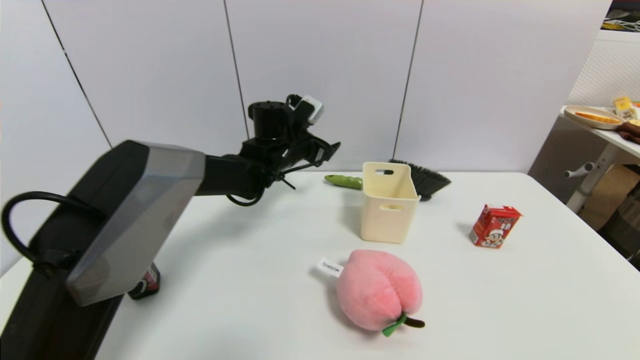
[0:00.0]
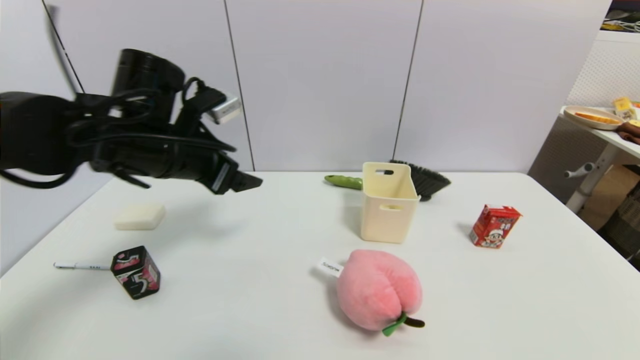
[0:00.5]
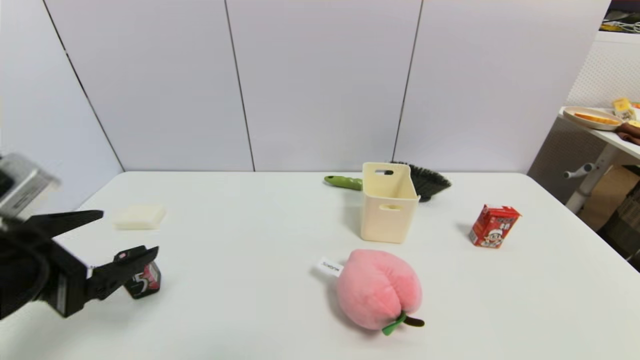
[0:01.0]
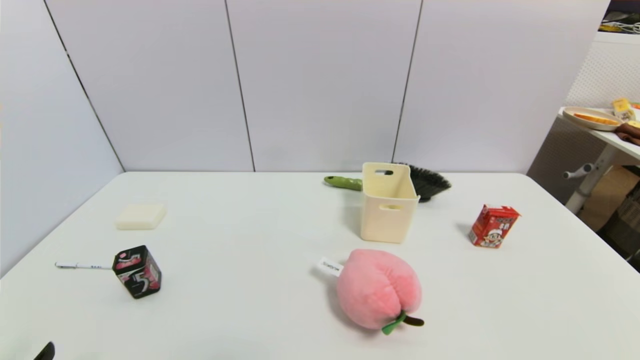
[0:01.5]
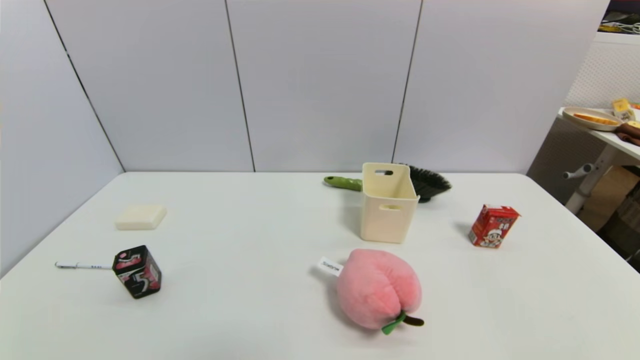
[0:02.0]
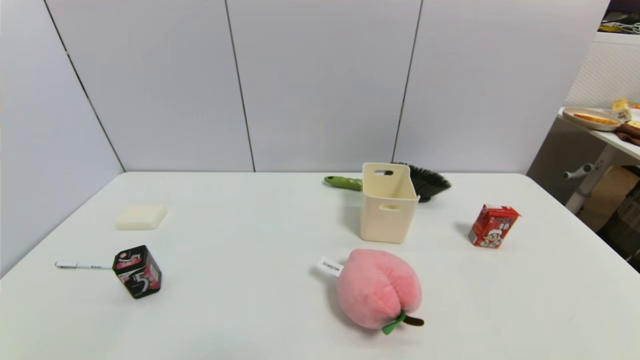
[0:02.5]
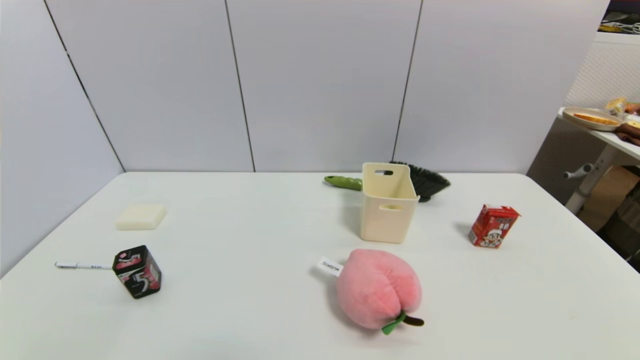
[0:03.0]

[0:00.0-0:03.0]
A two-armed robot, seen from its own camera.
Task of the whole recording: put the brush in the designated position.
0:00.0 to 0:01.5: The left gripper moves backward and to the left, some 50 cm.
0:01.5 to 0:03.0: The grippers make only small movements.

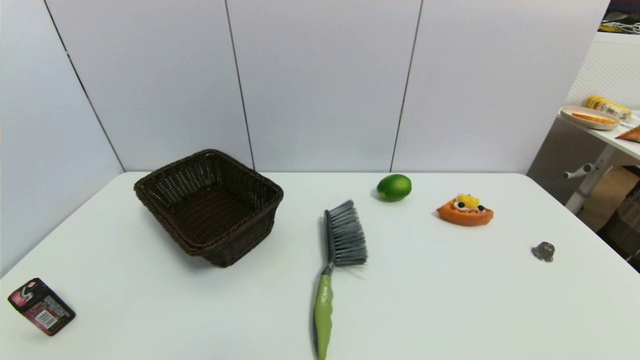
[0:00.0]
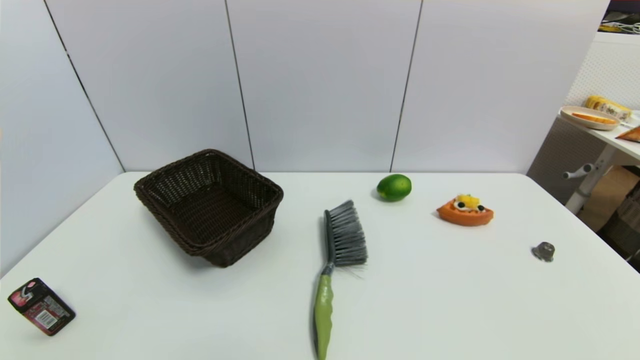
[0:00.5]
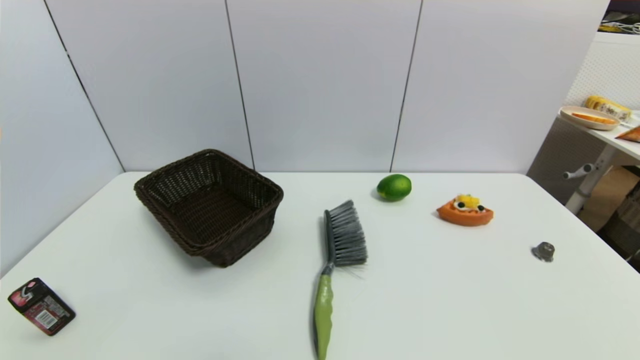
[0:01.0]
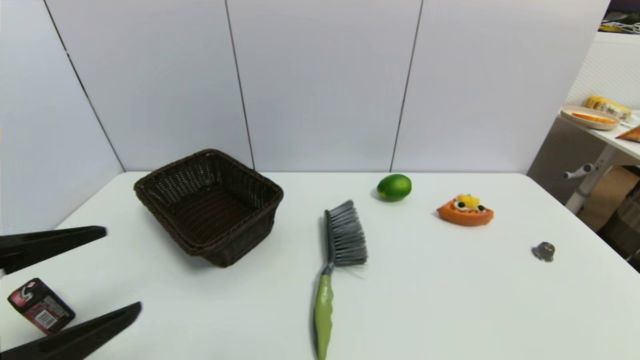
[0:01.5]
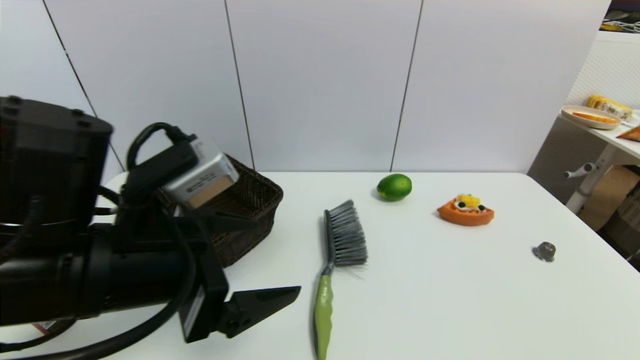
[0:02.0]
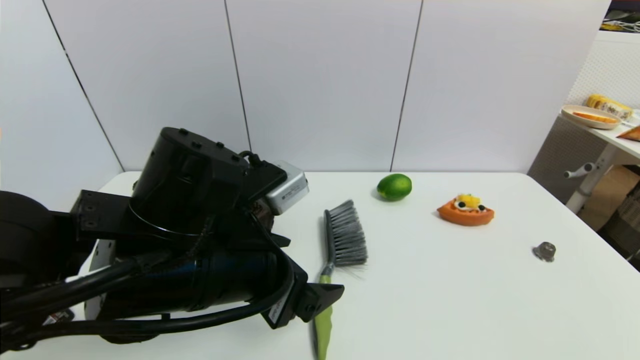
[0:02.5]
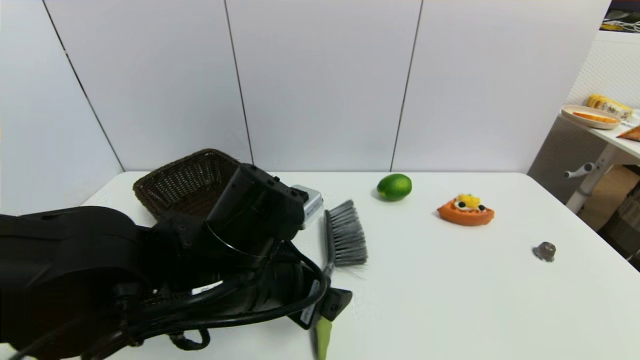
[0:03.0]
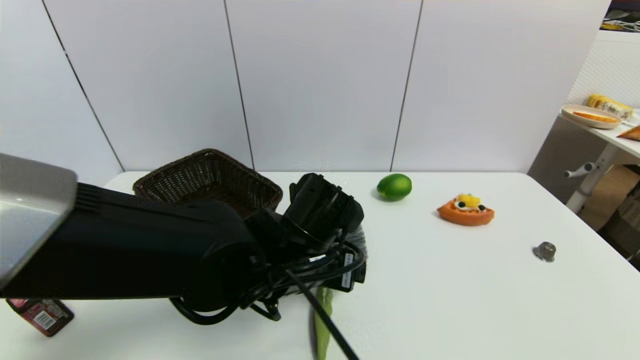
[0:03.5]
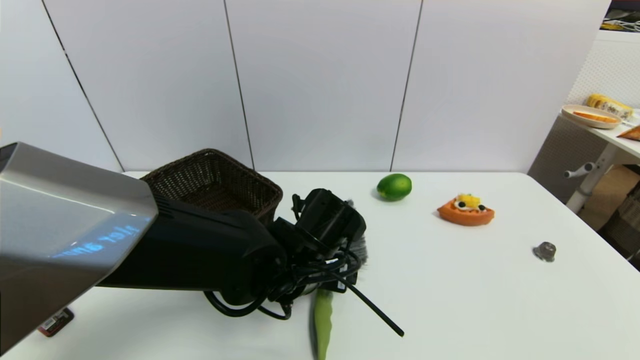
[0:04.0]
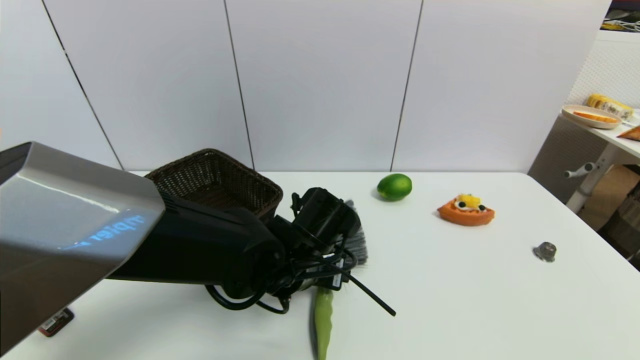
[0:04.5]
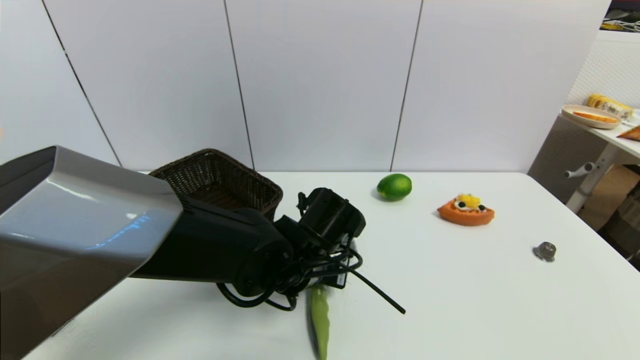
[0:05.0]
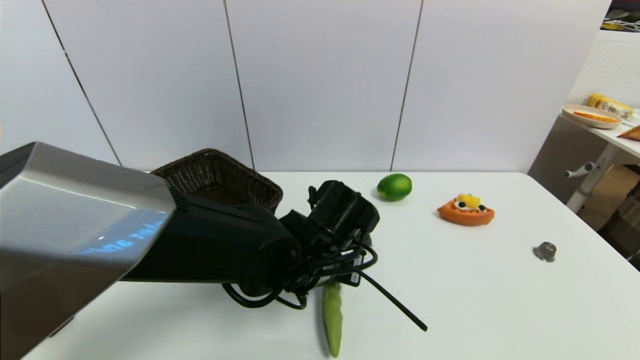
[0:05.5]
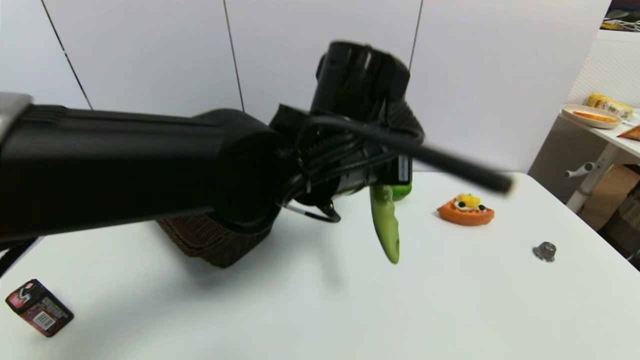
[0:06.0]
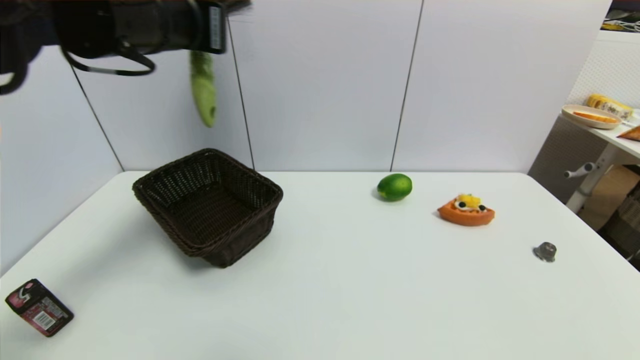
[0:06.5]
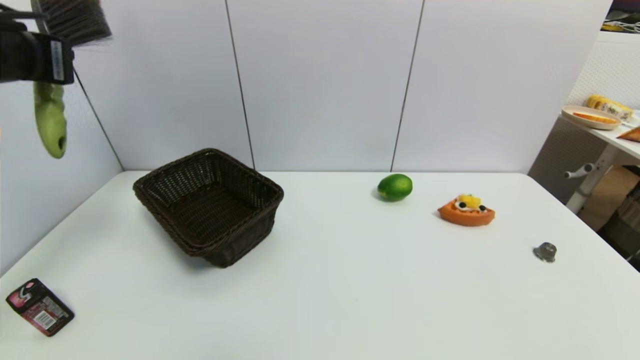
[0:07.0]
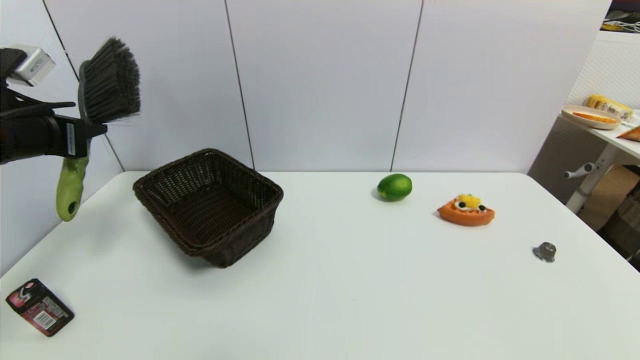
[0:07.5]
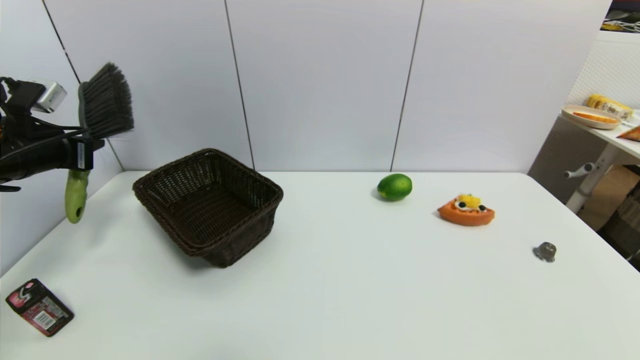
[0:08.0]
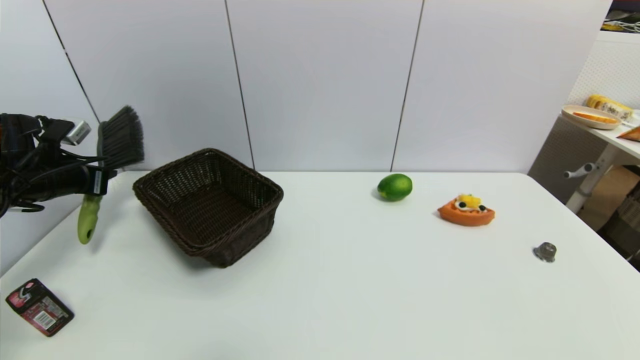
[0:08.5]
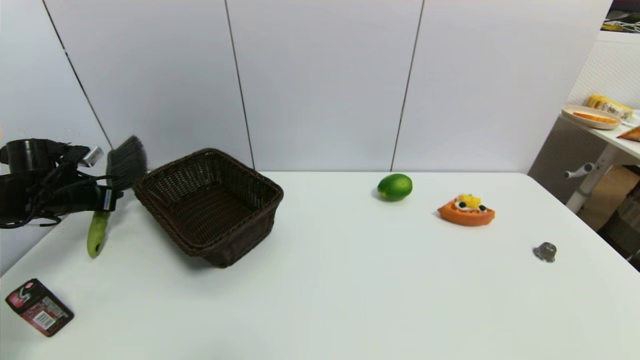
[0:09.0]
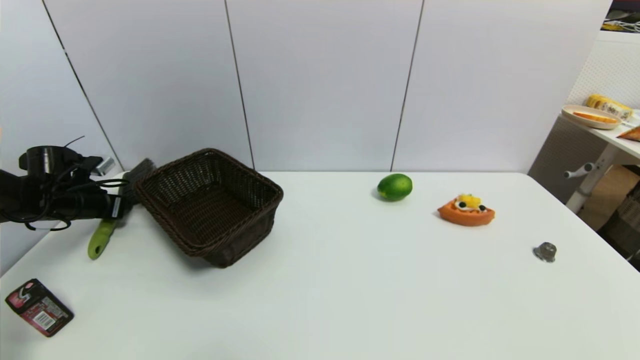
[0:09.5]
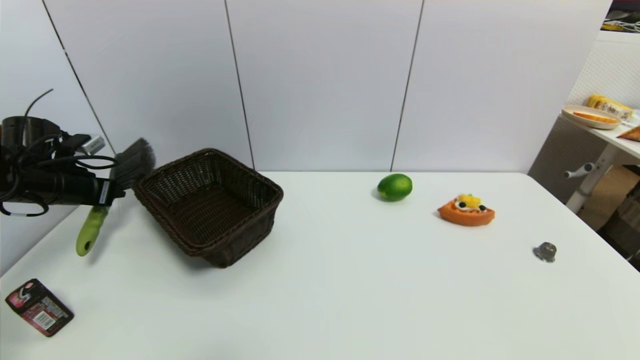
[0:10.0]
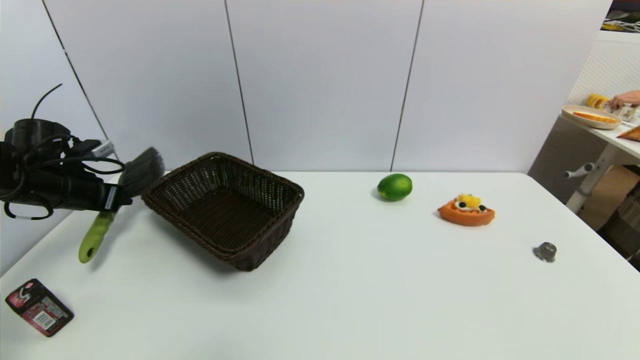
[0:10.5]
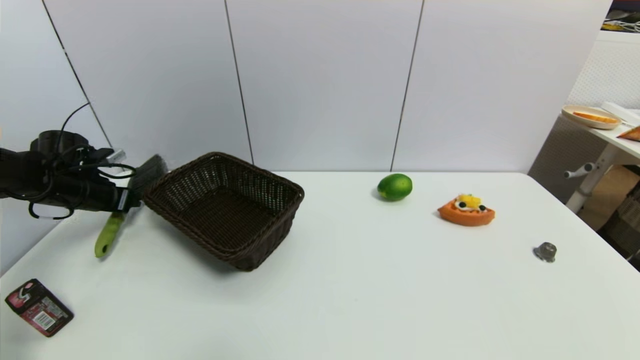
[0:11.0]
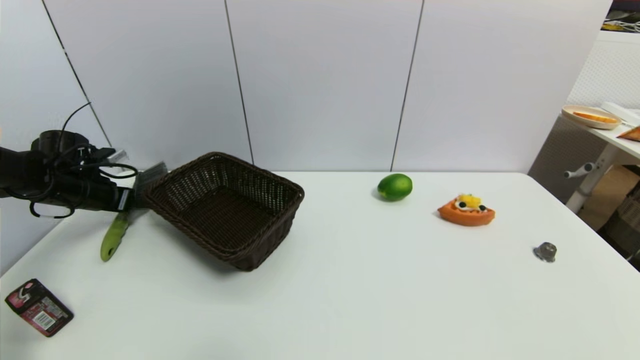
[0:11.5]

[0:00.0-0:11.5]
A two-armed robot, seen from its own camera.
Task of the whole recording: put the brush in the designated position.
Step, 0:01.5 to 0:05.5: Grasp the brush with left gripper.
0:00.0 to 0:02.0: The left gripper heads forward, upward and to the right, covering approximately 30 cm.
0:02.0 to 0:04.0: The left gripper goes roughly 20 cm to the right, downward and forward.
0:04.0 to 0:06.0: The left gripper moves upward, approximately 15 cm, and closes its fingers.
0:06.0 to 0:07.5: The left gripper goes about 35 cm to the left.
0:07.5 to 0:09.5: The left gripper shifts some 20 cm downward, forward and to the left.
0:09.5 to 0:11.5: The left gripper opens up.

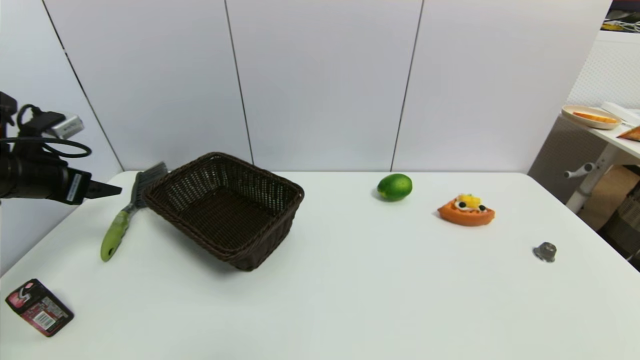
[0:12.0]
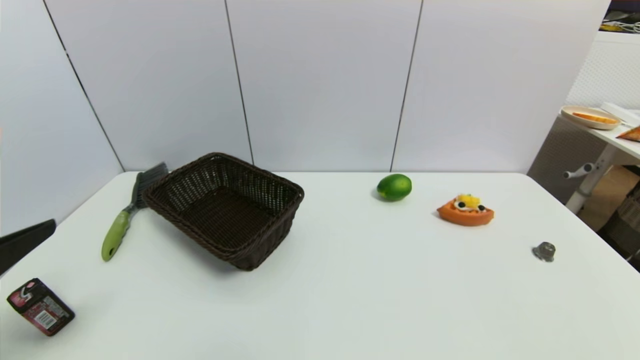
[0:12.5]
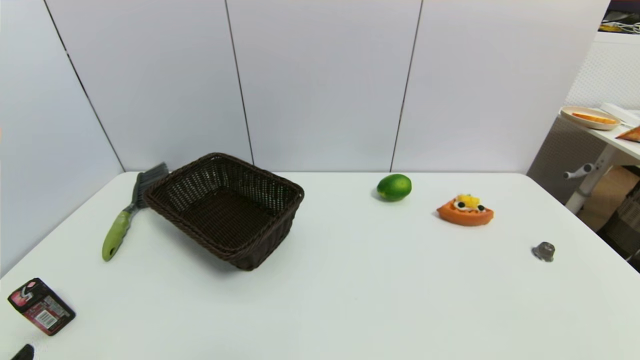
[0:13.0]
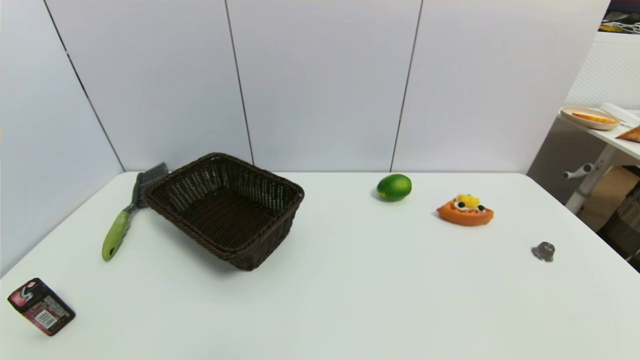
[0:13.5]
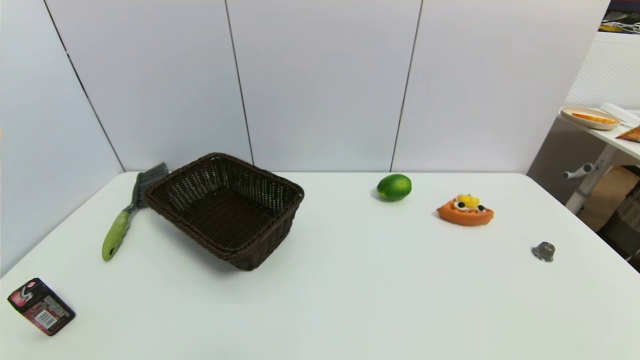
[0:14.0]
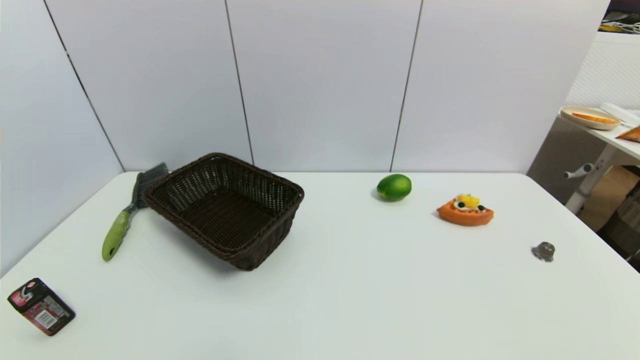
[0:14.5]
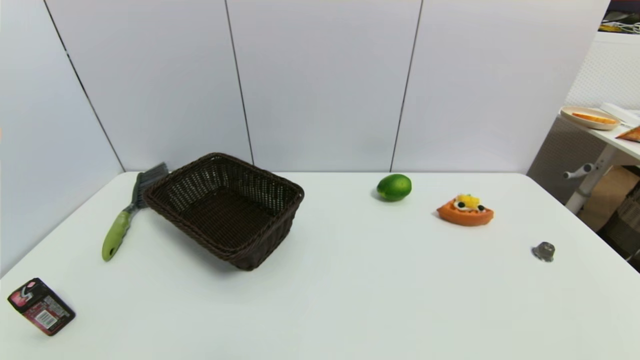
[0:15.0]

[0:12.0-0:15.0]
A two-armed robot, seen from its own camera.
Task of the whole recording: put the brush in the designated position.
0:12.0 to 0:13.5: The left gripper goes approximately 35 cm backward and downward.
0:13.5 to 0:15.0: Neither gripper changes place.
